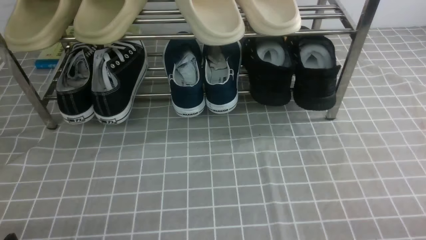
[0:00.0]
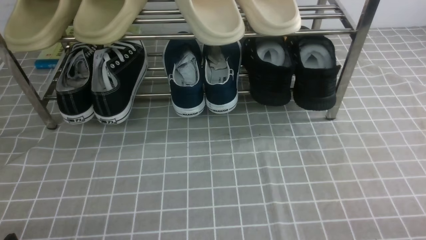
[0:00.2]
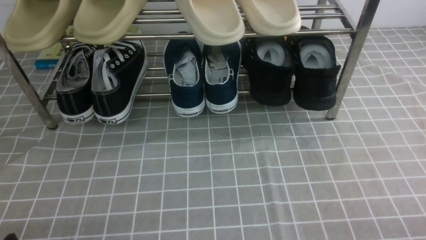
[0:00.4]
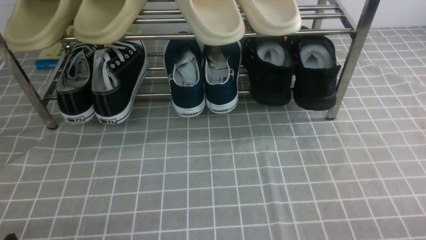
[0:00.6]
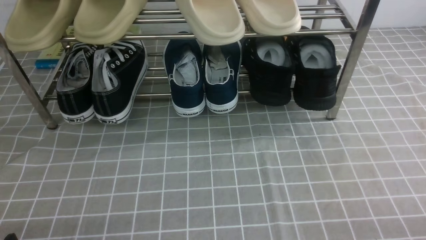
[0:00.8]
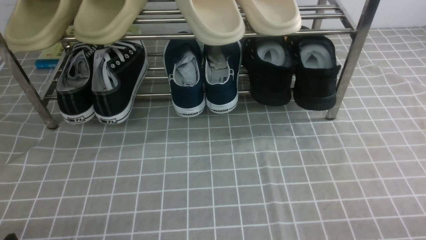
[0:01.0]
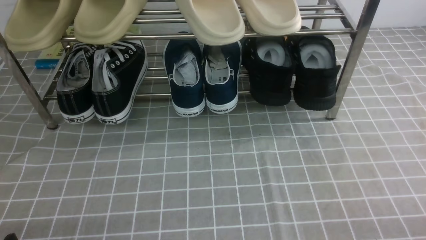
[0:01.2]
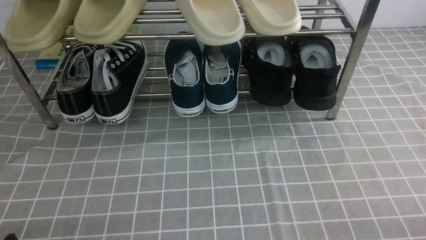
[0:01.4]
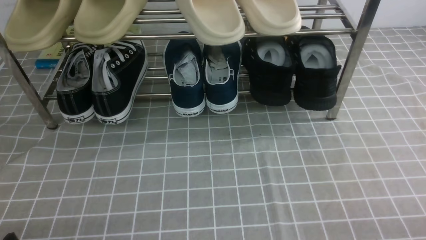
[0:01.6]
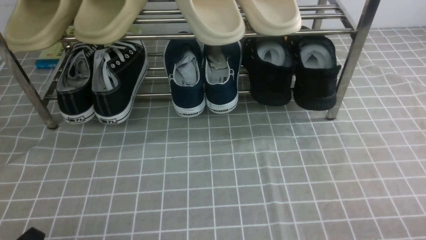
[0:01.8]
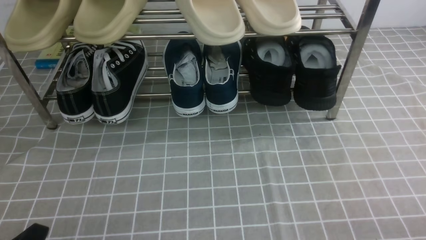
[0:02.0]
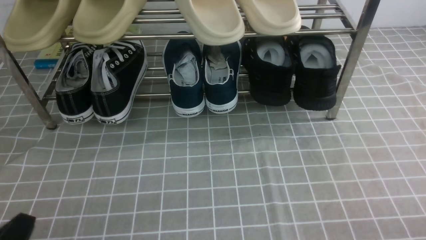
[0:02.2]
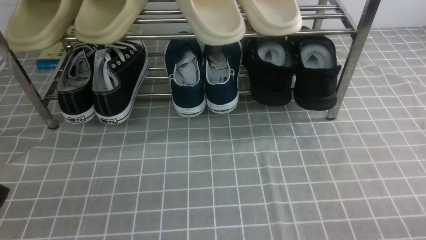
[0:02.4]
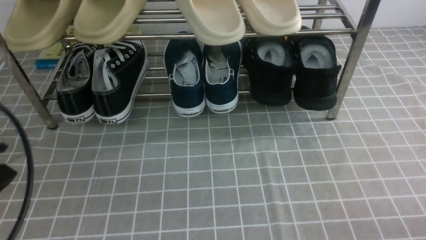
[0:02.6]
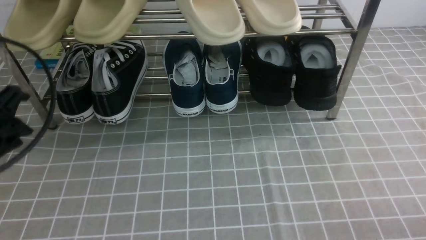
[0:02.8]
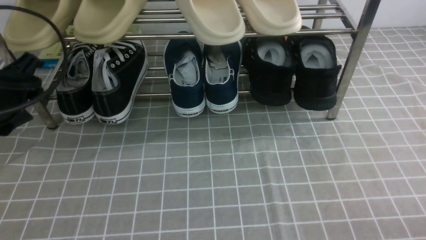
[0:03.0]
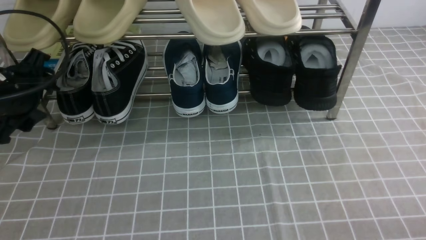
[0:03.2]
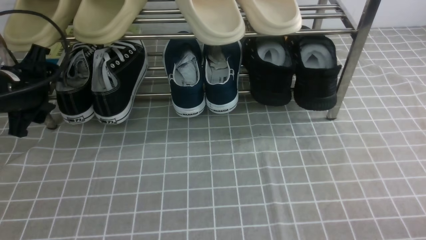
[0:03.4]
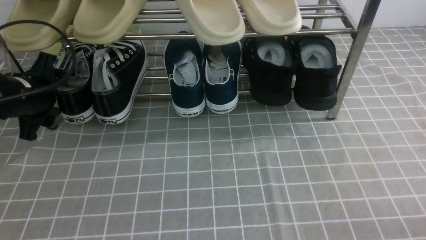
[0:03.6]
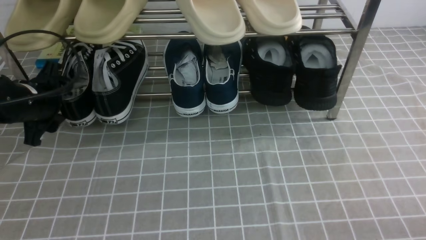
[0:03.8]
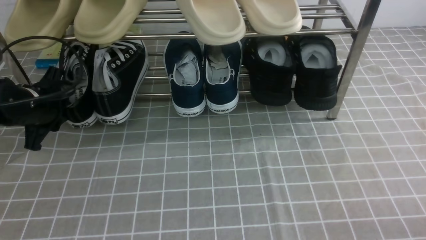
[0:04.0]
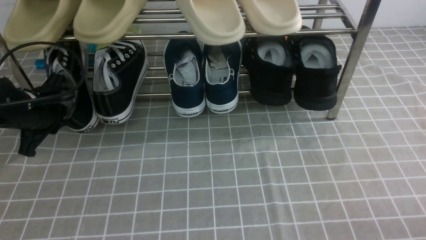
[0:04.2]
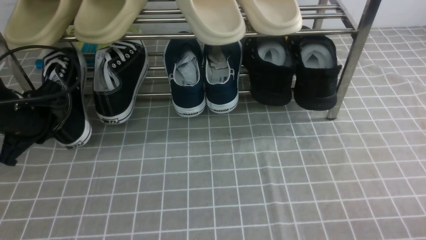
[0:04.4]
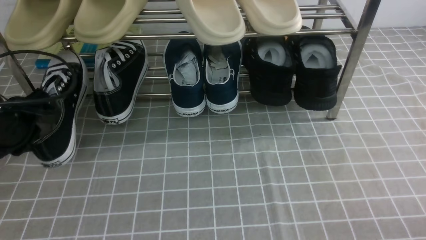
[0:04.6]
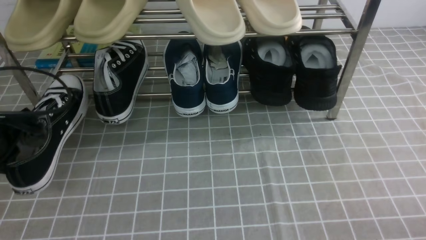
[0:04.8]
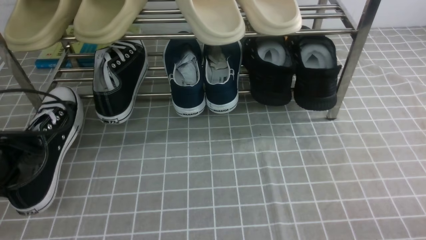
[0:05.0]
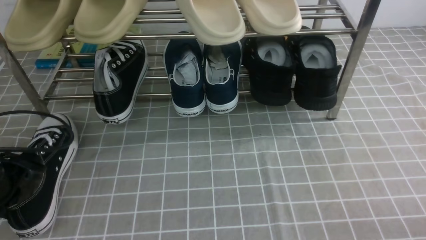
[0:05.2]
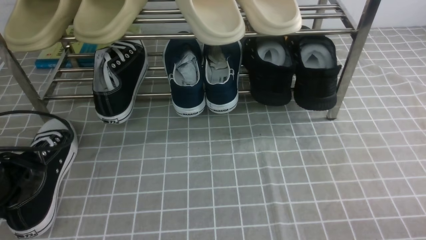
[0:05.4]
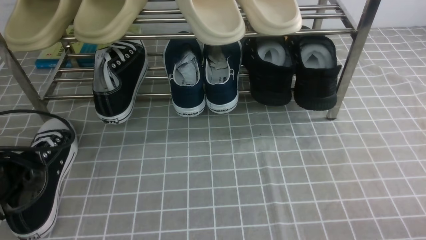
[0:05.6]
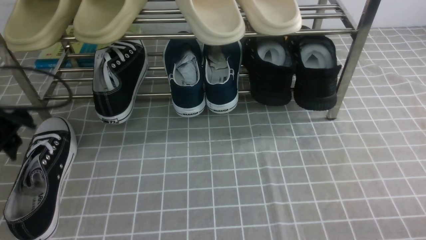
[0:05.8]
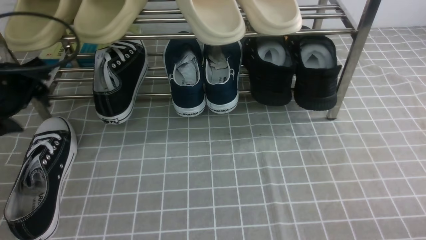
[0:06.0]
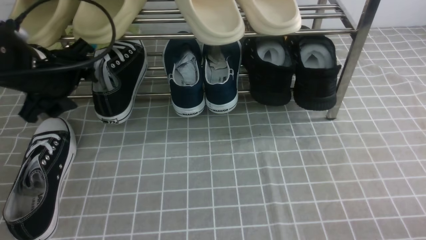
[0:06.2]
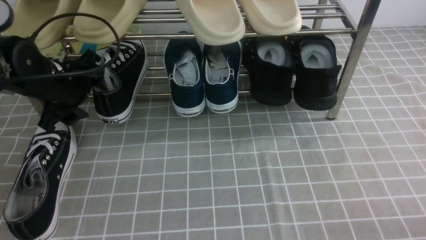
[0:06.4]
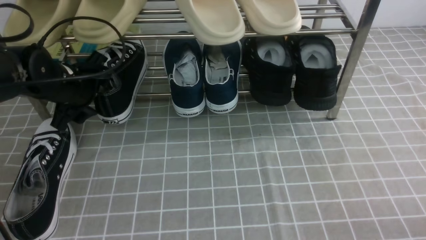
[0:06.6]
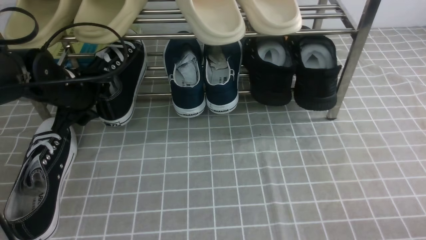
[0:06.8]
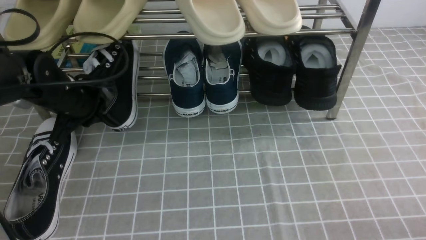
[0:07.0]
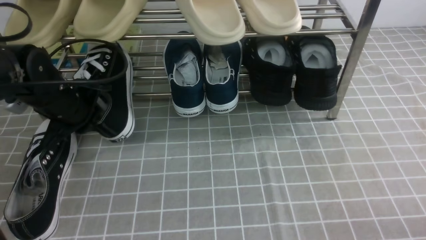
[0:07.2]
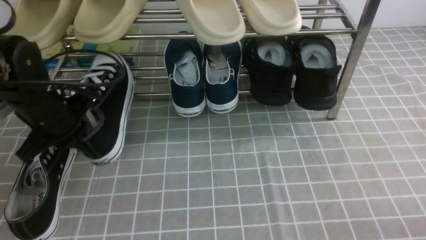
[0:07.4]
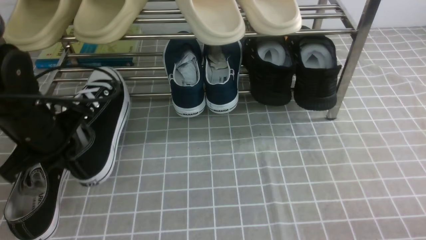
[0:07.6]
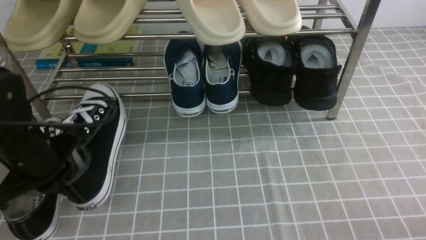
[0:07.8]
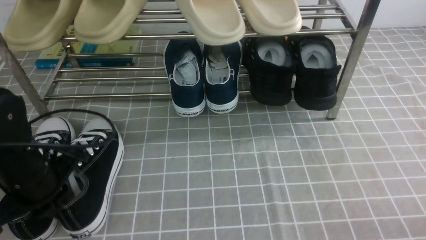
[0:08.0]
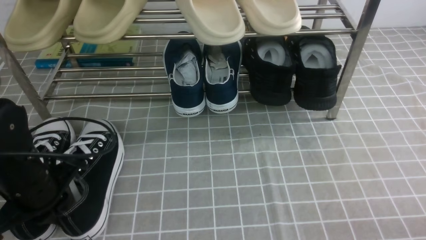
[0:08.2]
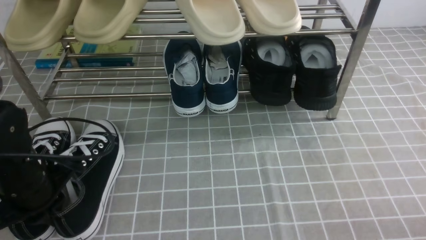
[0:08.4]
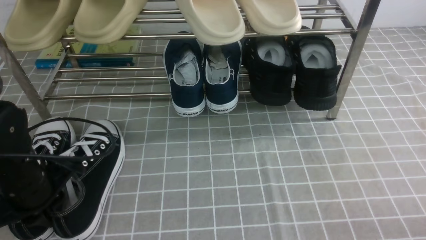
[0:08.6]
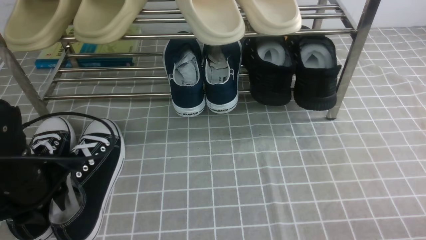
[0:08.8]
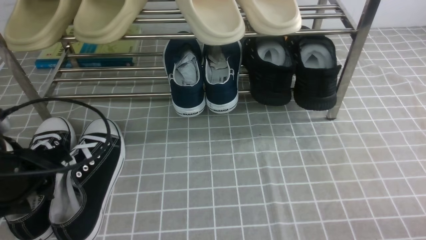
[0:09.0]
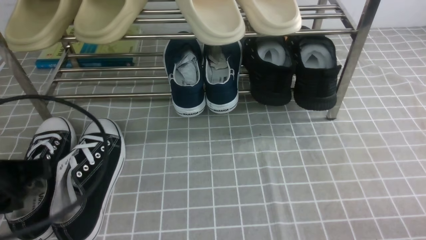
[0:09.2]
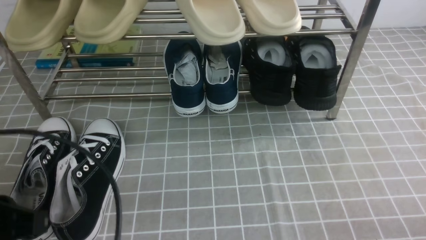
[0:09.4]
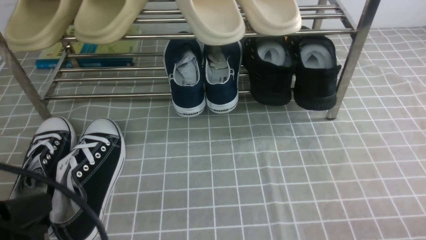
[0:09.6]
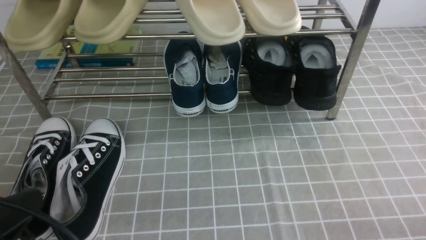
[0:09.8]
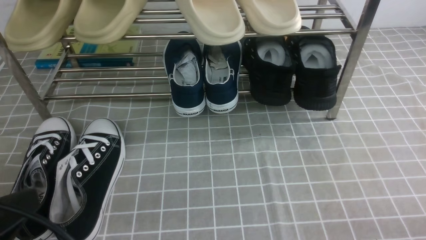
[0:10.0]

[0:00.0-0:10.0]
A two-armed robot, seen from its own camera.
Step, 0:00.0 to 0:04.2: use the left arm to clamp a shoe on the left side of the shoe rack.
Step, 0:04.4 to 0:05.8: Use your left arm to remove the clamped shoe from the shoe rack and put it down.
Step, 0:06.0 to 0:07.0: use the left arm to clamp a shoe on the left side of the shoe rack.
Step, 0:07.2 to 0:09.0: Use your left arm to remove the clamped shoe from the shoe rack and put it down.
0:01.4 to 0:02.8: The left gripper is displaced upward and forward by approximately 15 cm.
0:02.8 to 0:04.2: The left gripper goes some 20 cm forward and downward, and opens, then closes once more.
0:04.2 to 0:05.8: The left gripper is displaced backward by approximately 10 cm.
0:05.8 to 0:07.2: The left gripper is displaced forward and to the right by roughly 10 cm, and closes.
0:07.2 to 0:08.6: The left gripper goes roughly 10 cm backward.
0:08.6 to 0:10.0: The left gripper is displaced backward and upward by about 20 cm.

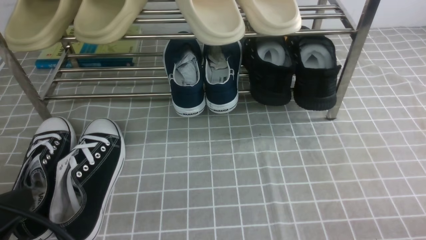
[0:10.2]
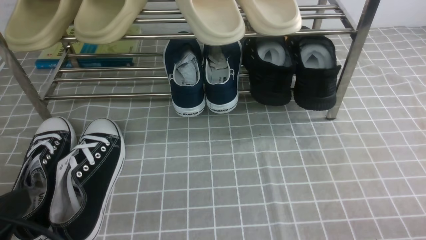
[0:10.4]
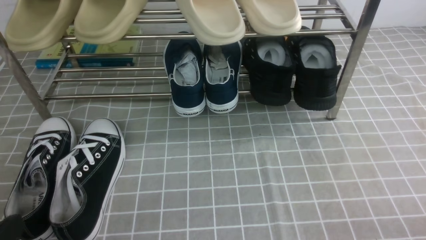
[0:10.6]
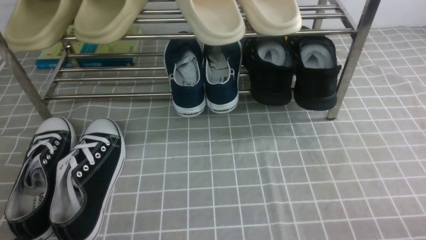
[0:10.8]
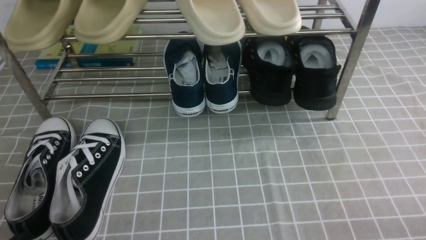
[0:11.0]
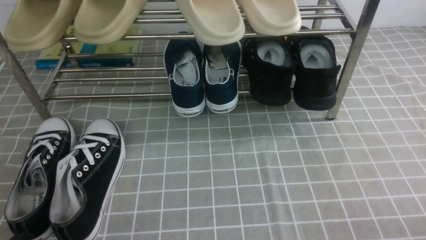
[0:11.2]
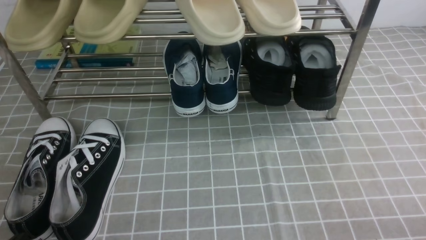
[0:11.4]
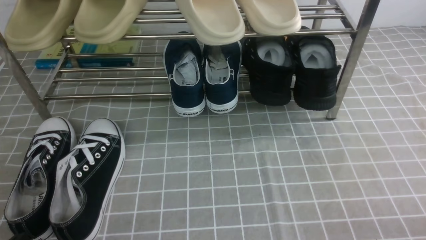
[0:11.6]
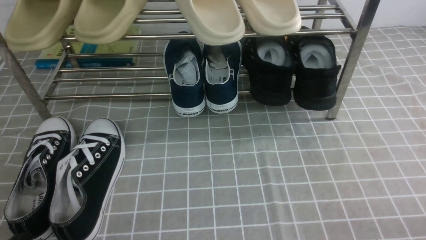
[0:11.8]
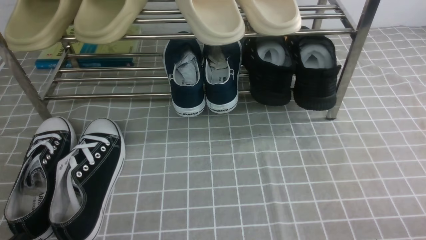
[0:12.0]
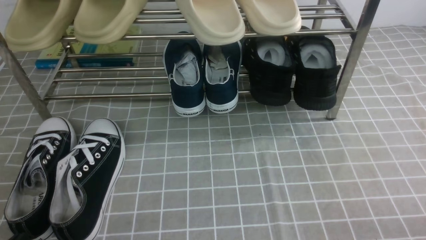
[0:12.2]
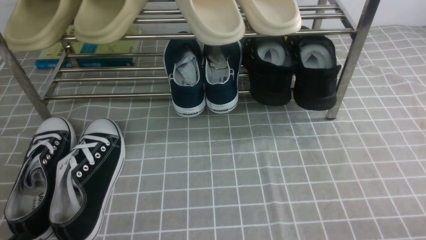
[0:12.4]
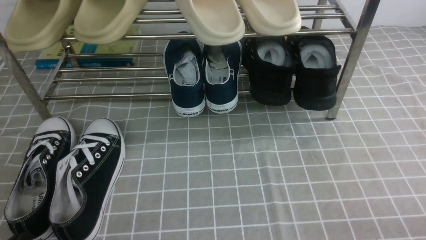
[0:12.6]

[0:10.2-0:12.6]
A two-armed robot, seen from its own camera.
0:10.2 to 0:11.4: The left gripper is displaced downward by roughly 10 cm.
0:11.4 to 0:12.6: Both grippers stay about where they are.
